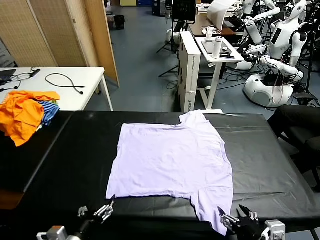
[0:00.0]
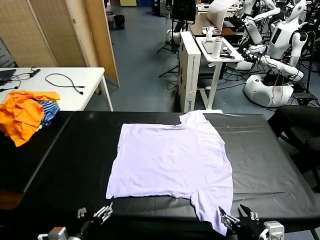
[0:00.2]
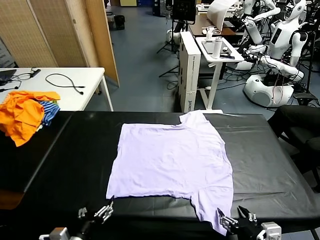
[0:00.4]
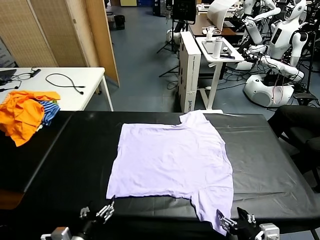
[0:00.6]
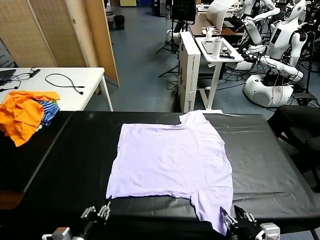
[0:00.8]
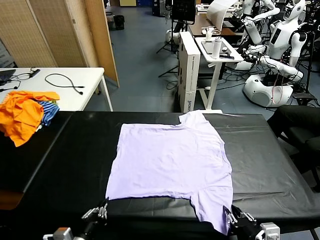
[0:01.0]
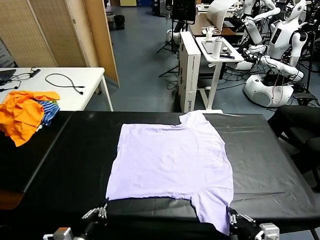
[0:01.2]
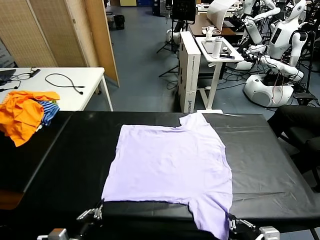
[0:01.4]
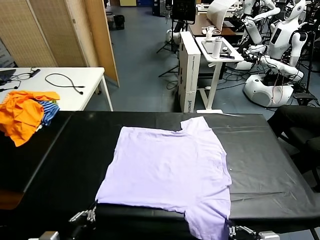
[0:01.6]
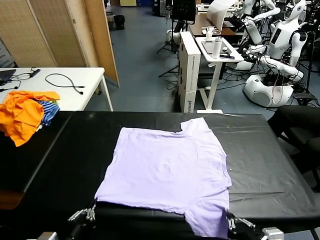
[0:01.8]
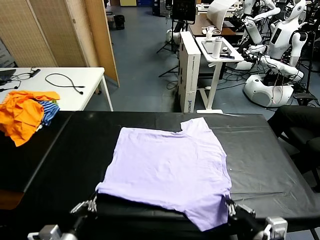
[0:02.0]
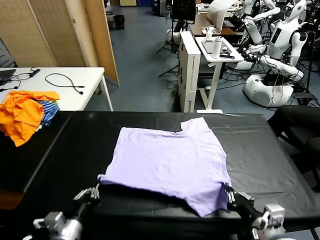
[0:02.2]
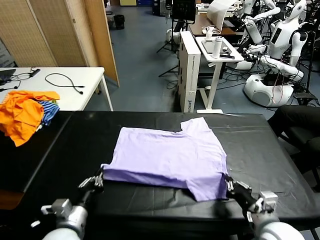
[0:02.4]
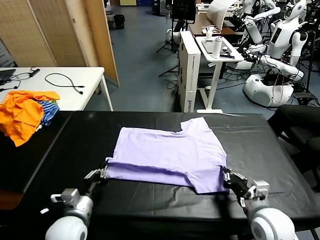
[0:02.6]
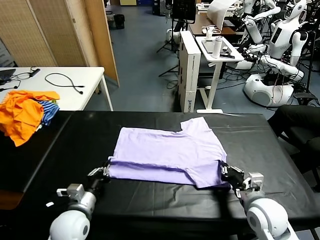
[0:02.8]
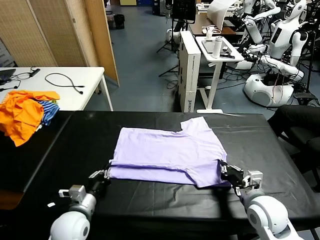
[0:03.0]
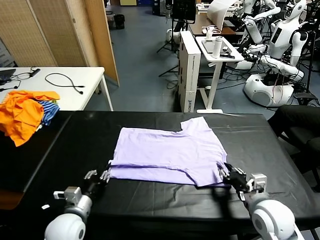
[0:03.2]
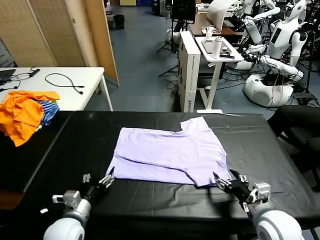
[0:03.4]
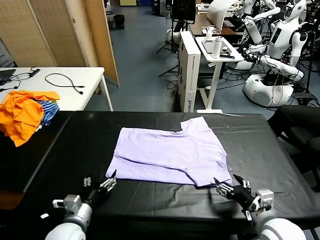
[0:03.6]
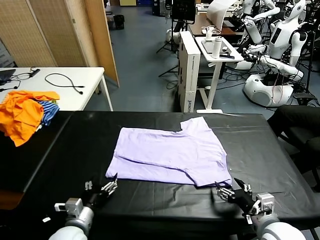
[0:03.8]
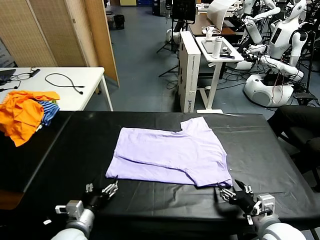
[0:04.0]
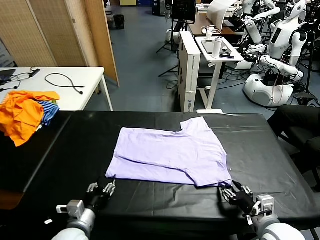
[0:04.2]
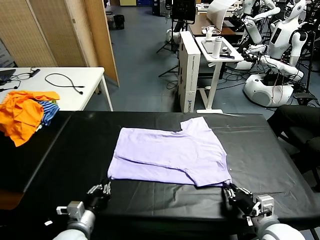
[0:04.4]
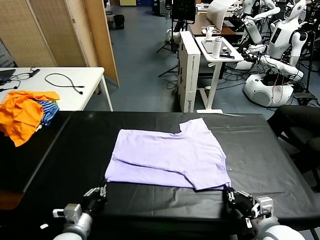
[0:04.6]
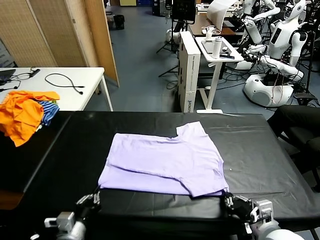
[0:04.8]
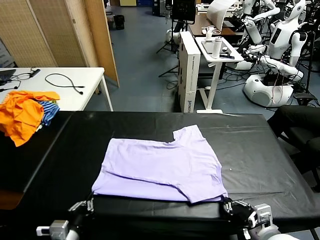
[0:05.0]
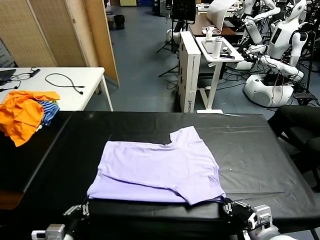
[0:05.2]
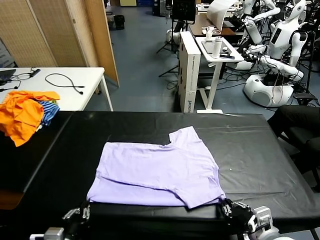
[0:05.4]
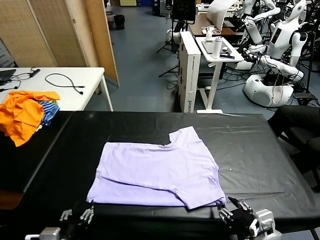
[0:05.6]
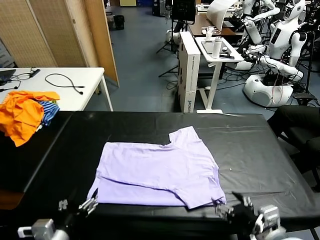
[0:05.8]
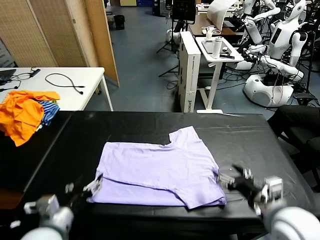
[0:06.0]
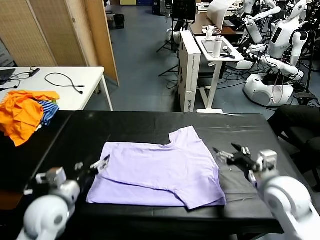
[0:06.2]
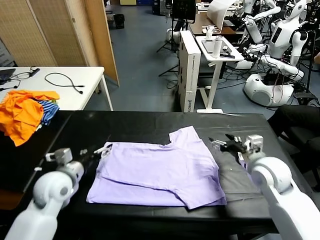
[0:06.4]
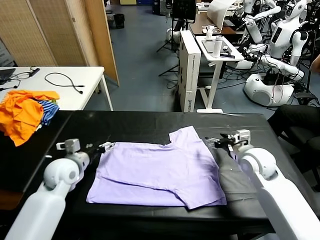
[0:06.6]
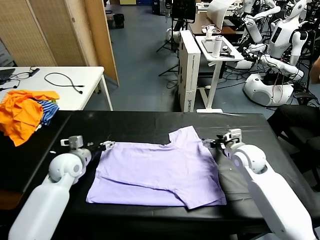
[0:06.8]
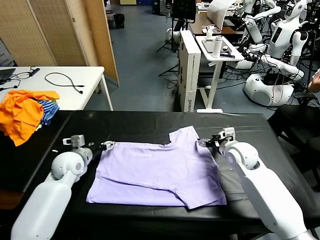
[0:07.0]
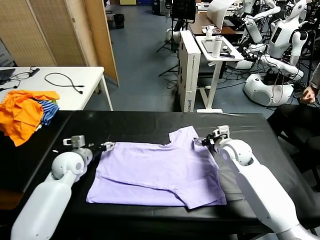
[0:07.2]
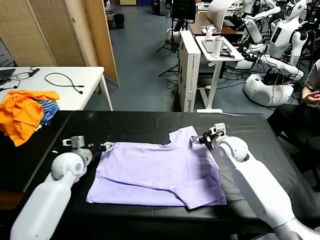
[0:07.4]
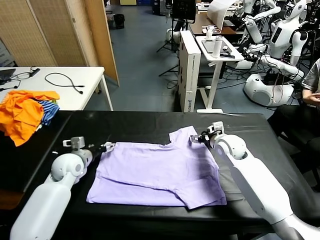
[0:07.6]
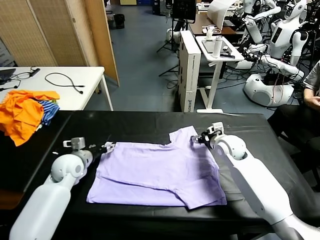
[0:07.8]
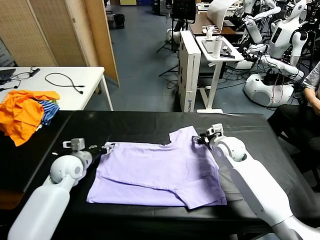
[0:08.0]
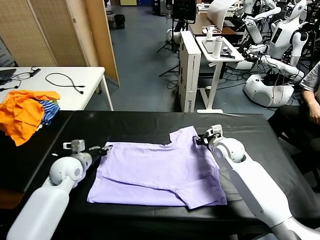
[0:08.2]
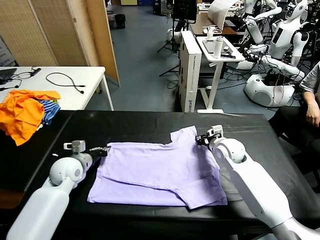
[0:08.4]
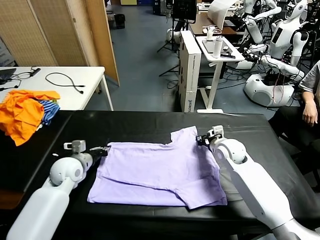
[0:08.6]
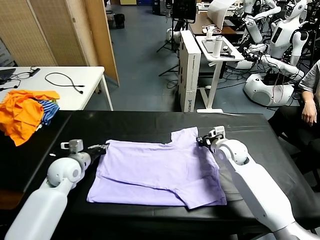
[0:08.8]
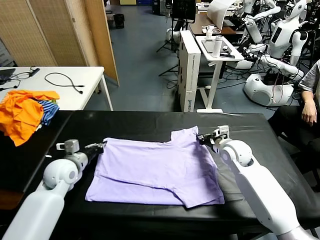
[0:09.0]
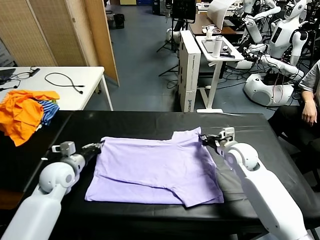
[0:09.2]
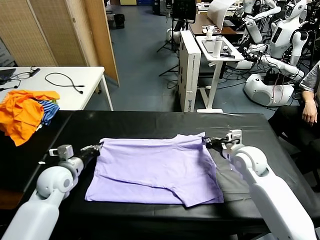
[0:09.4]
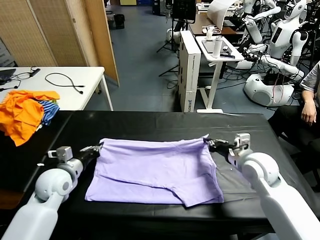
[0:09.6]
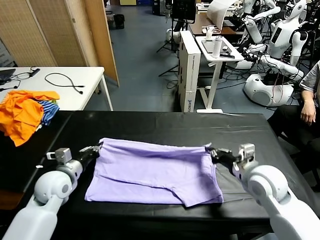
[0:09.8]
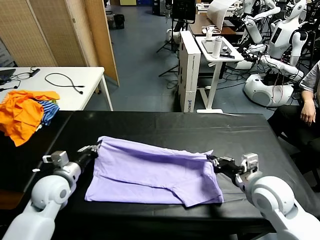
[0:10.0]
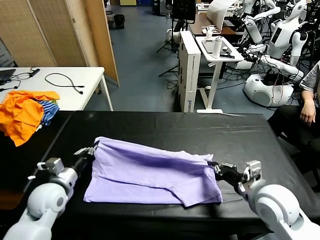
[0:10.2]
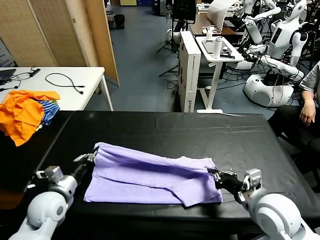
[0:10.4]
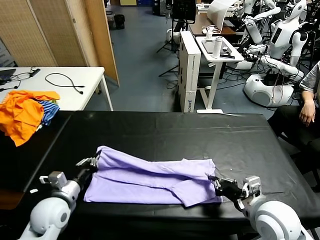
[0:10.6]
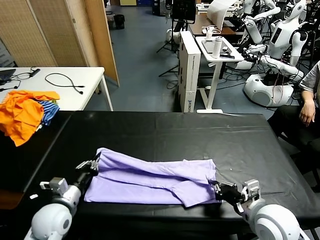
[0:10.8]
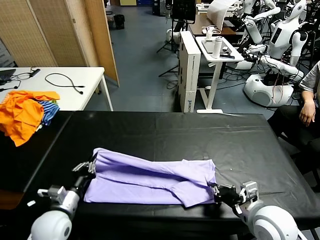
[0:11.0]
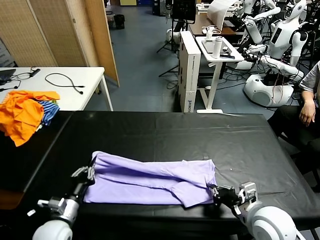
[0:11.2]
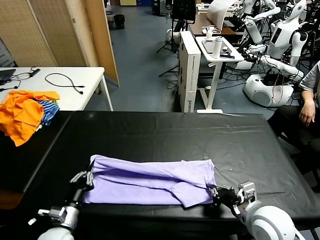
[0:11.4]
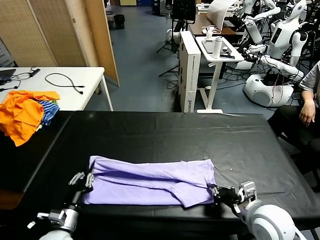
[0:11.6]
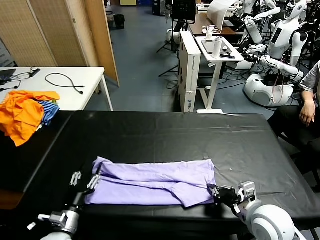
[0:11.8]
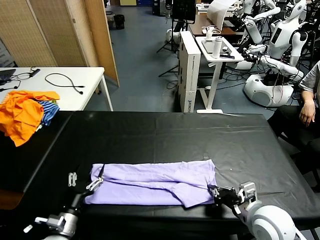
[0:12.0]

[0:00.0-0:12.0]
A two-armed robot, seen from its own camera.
Task of the whole recording: fold and organize the clothes.
Step, 0.0 to 1.2 s: use both grippers simultaneously to clamp the lower edge of the clothing fabric.
Step, 1.4 to 3.2 s: use both grippers to drag the lower edge of the fabric forward and fold it over the upper edge.
Step, 3.4 to 5.6 s: Drag the clothes downward with both gripper.
Step, 6.0 to 8.6 s: use both grippers simultaneously to clamp the upper edge of the clothing fabric.
1.6 to 3.0 s: The grippers both shift forward by some 15 cm. The right gripper opens up.
3.0 to 4.4 s: The right gripper is displaced backward by approximately 5 cm, and closes up, while the left gripper opens and closes again.
4.4 to 6.0 s: The left gripper is displaced upward by about 10 cm, and opens, while the right gripper is displaced forward and upward by roughly 10 cm, and opens.
6.0 to 7.6 s: Both grippers move forward, about 20 cm.
7.6 to 9.0 s: The right gripper closes. Meanwhile the left gripper closes up.
9.0 to 10.4 s: The right gripper travels backward by some 20 cm; the left gripper heads backward, covering about 10 cm.
10.4 to 12.0 s: The left gripper heads backward and downward, covering some 10 cm, and opens up.

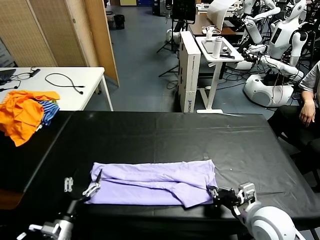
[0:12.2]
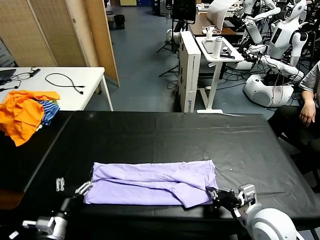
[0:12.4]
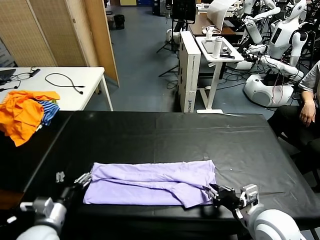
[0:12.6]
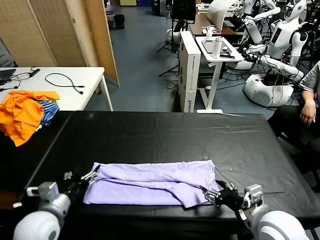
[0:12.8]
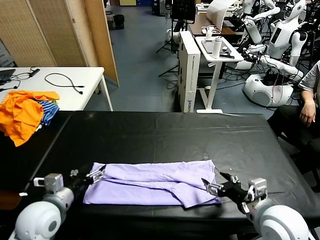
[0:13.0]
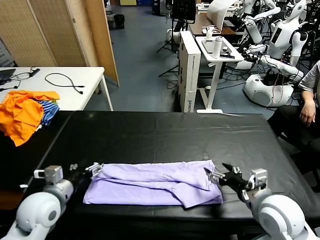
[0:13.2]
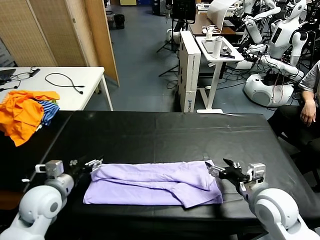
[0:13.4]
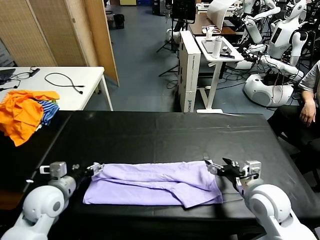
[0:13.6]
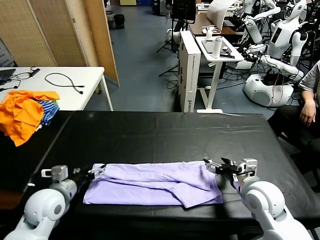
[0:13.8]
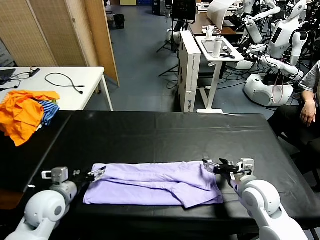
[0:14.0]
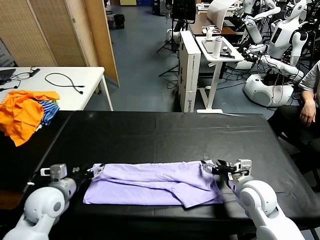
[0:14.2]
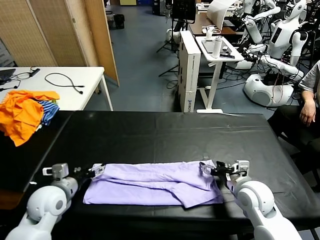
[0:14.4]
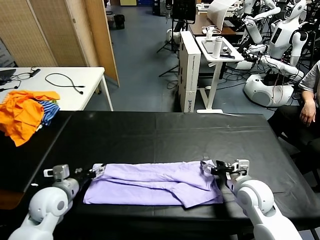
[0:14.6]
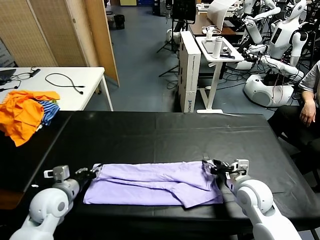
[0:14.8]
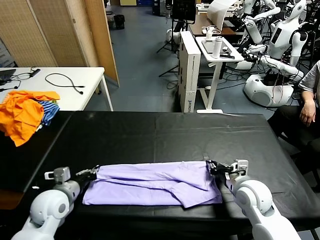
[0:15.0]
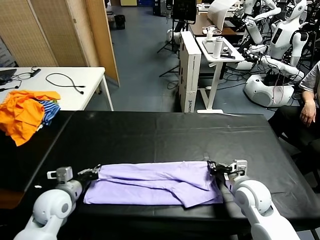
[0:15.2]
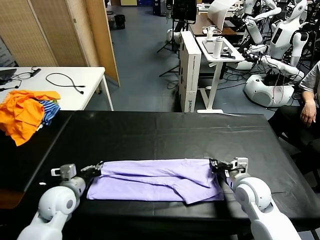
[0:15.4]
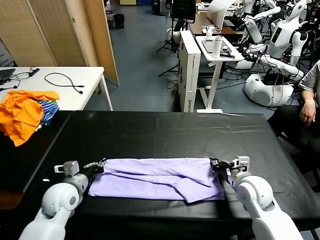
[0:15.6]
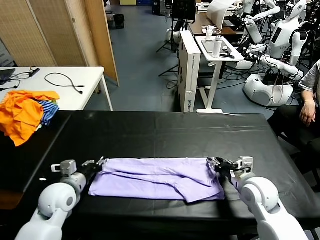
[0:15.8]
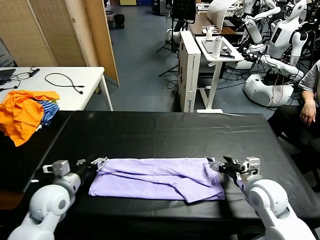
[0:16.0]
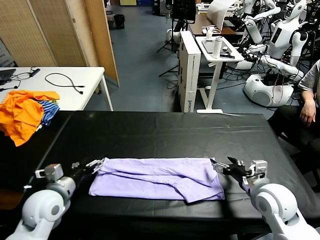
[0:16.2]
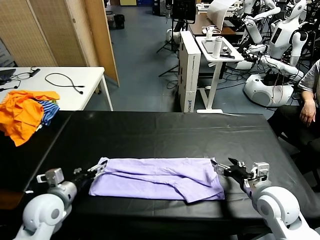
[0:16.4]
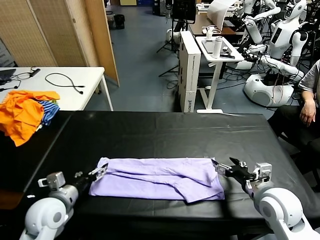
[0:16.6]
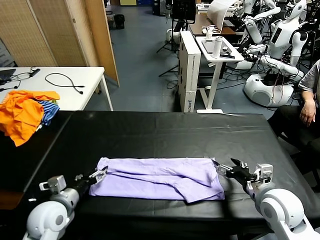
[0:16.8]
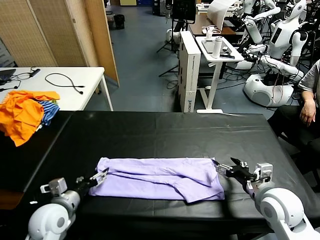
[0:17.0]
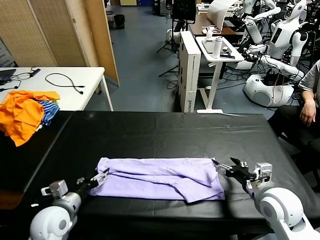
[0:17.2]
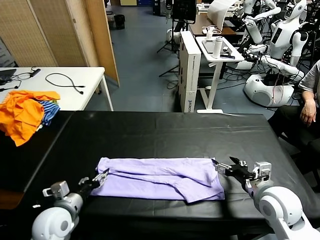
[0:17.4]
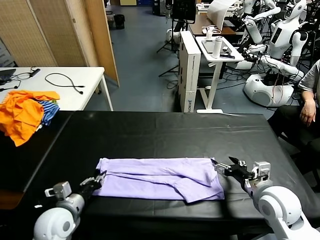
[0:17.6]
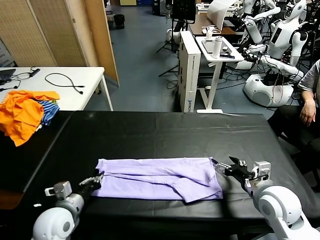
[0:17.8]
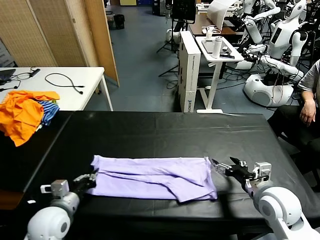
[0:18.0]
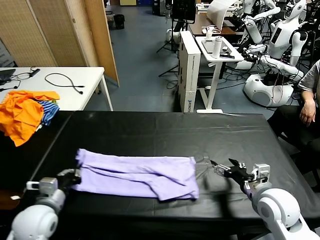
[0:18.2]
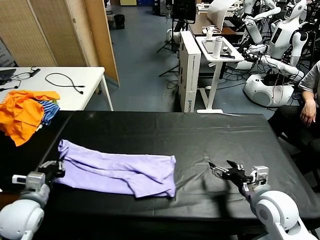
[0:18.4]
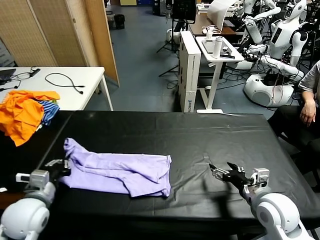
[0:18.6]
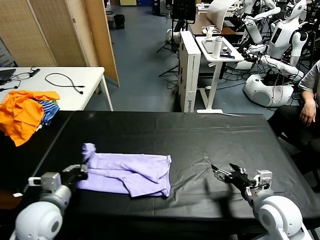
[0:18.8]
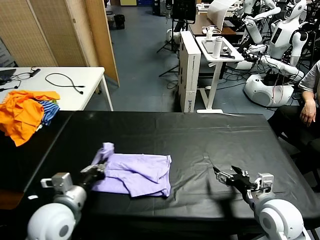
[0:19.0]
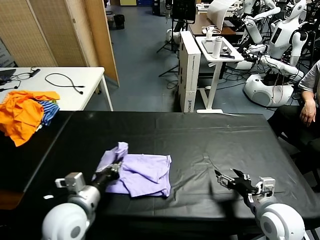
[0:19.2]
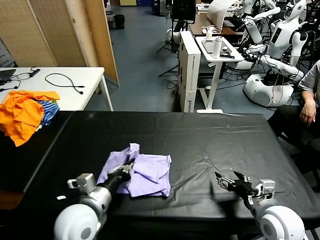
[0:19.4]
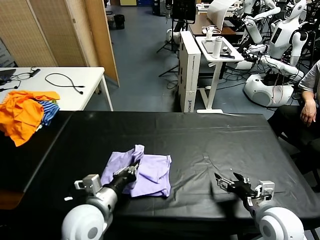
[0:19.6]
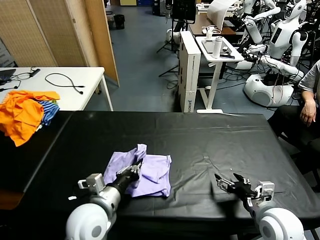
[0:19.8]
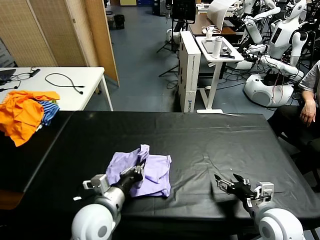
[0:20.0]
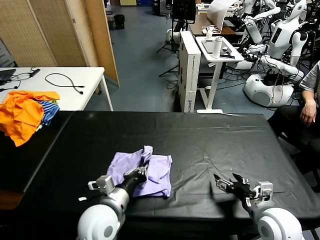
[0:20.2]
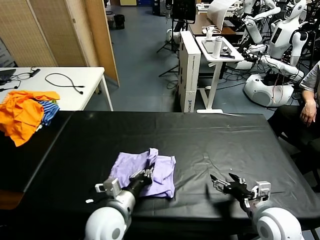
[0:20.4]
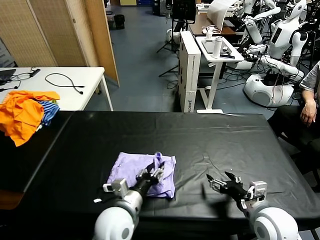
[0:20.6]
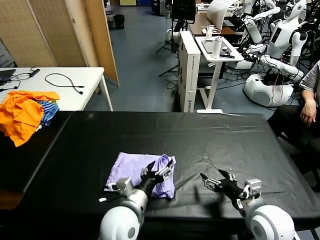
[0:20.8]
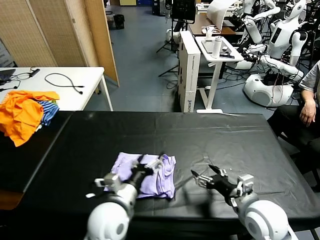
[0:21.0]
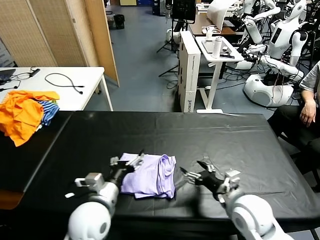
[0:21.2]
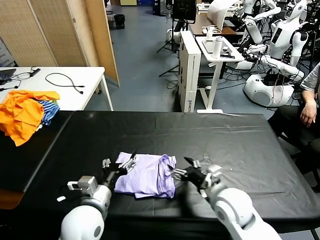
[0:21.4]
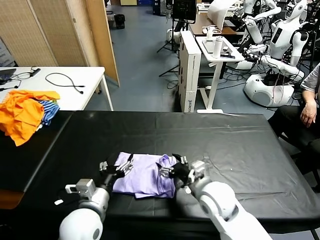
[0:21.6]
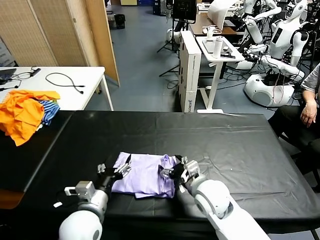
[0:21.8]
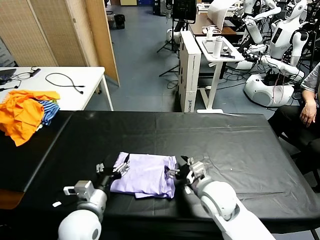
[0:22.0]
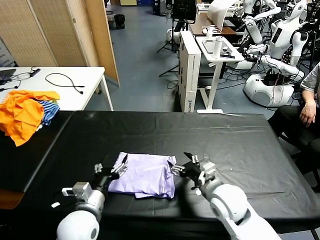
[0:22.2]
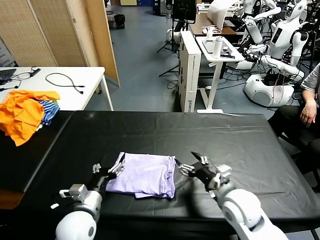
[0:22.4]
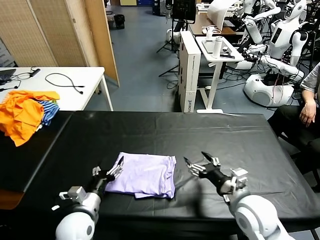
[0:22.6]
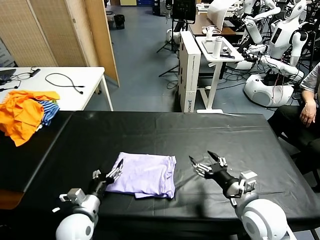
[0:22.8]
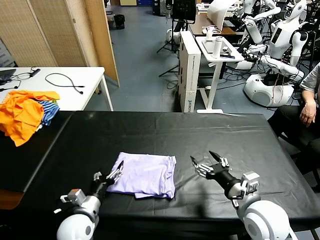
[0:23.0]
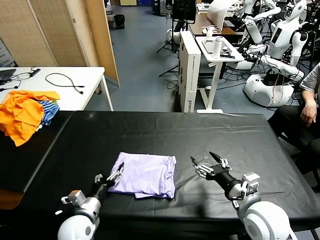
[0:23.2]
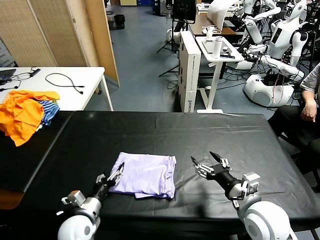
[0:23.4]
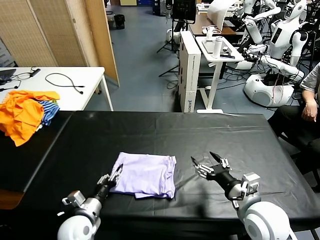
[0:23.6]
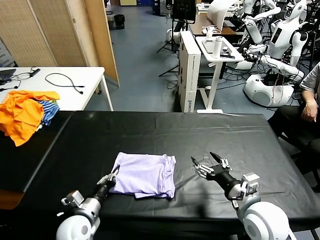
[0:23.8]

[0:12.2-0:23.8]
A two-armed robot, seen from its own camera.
Task of the whole recording: fold and organize the clothes.
Step, 12.2 to 16.0 s: use both grippers to drag the upper edge of the fabric backward and fold it over the lower edge.
Step, 16.2 to 17.8 s: use the left gripper to clamp the left edge of the fabric.
Step, 18.2 to 22.2 s: use the left gripper to drag the left edge of the fabric to the left and folds it over the right edge.
12.2 to 13.6 s: The right gripper goes about 5 cm forward, and opens up. The left gripper goes about 15 cm forward and upward.
13.6 to 15.0 s: The left gripper closes; the right gripper closes up.
15.0 to 16.6 s: The left gripper opens up. The right gripper ends up some 10 cm from where it was, and opens up.
16.6 to 18.0 s: The left gripper closes up.
18.0 to 19.4 s: The left gripper is displaced to the right and upward by some 10 cm.
19.4 to 21.0 s: The left gripper shifts some 5 cm to the right, and opens its fingers; the right gripper shifts by about 5 cm.
21.0 to 22.4 s: The left gripper is displaced to the left by roughly 10 cm.
22.4 to 23.8 s: The right gripper ends up about 5 cm from where it was. Meanwhile the left gripper heads downward, covering approximately 5 cm, and closes up.
